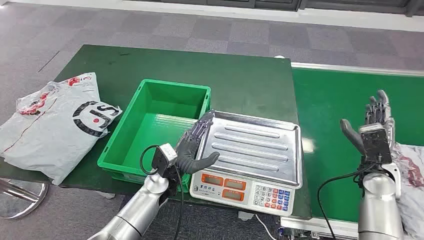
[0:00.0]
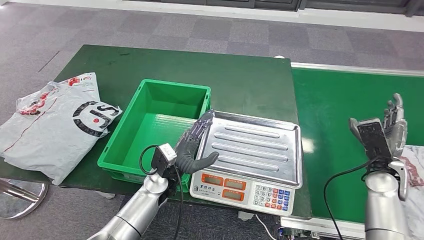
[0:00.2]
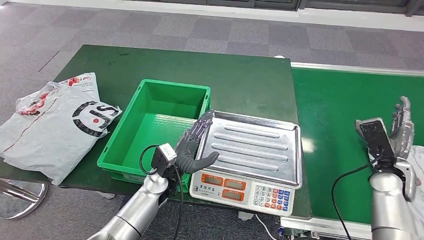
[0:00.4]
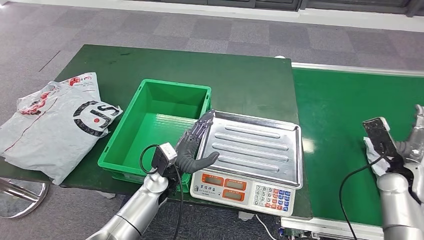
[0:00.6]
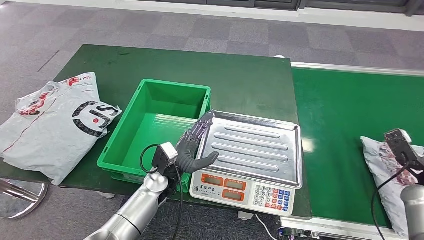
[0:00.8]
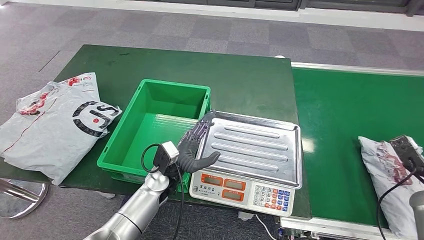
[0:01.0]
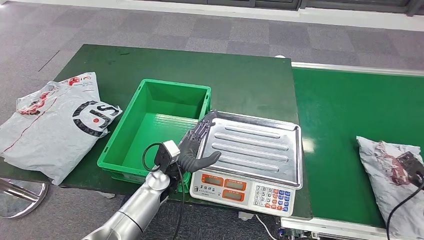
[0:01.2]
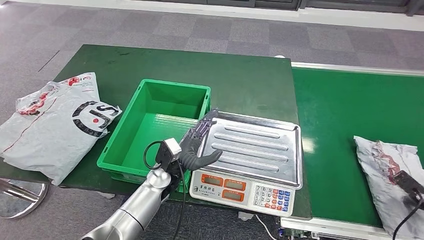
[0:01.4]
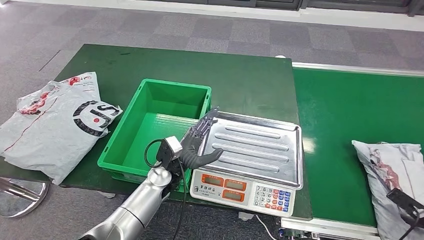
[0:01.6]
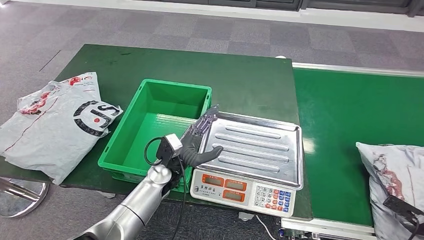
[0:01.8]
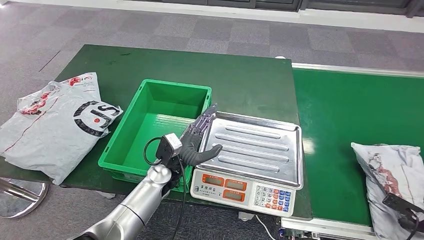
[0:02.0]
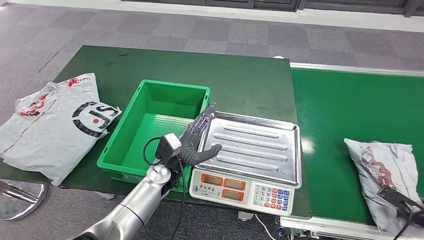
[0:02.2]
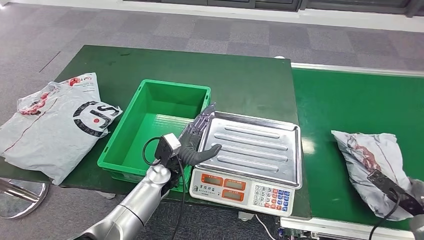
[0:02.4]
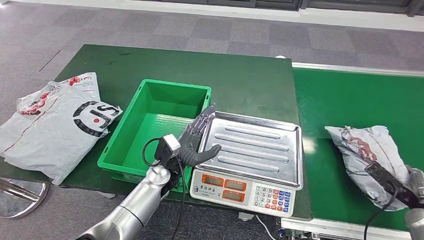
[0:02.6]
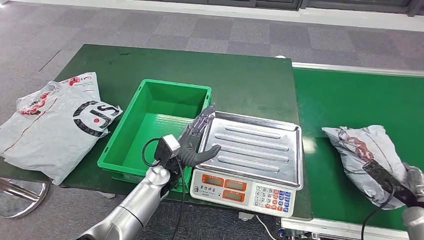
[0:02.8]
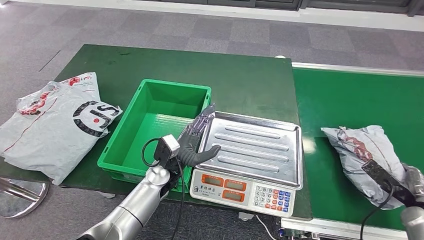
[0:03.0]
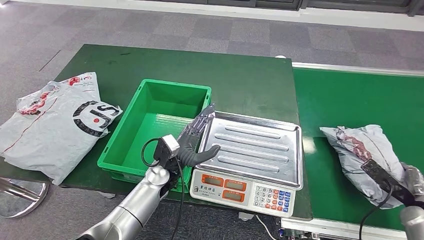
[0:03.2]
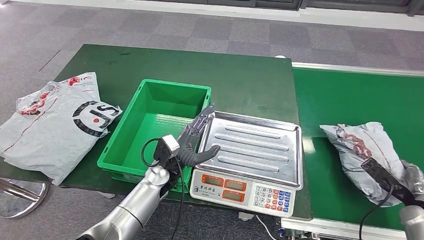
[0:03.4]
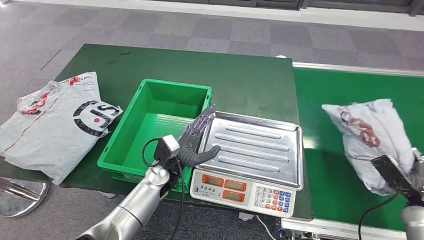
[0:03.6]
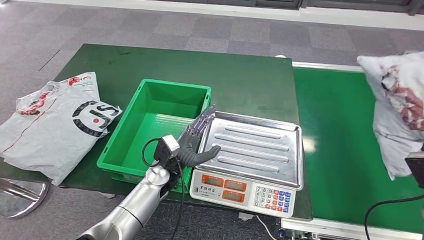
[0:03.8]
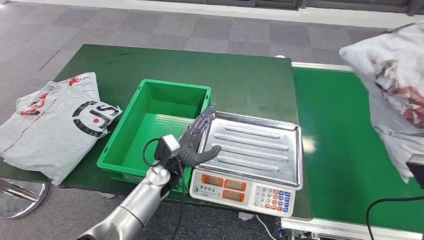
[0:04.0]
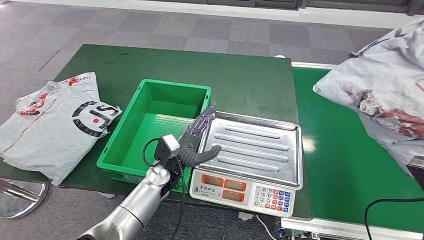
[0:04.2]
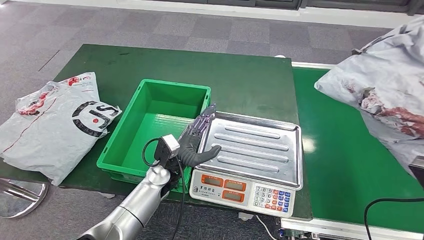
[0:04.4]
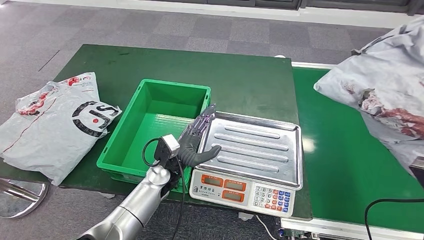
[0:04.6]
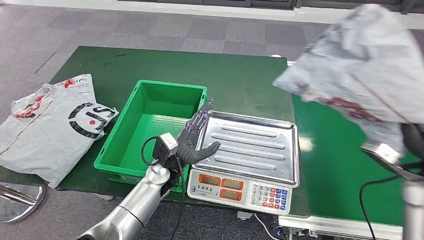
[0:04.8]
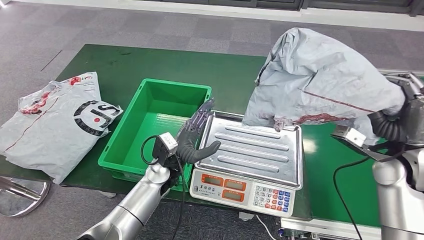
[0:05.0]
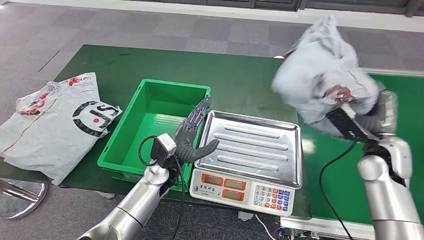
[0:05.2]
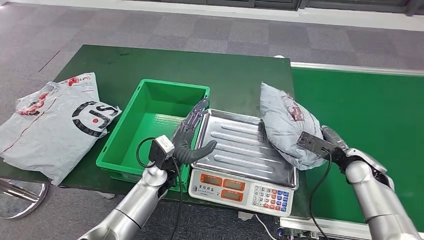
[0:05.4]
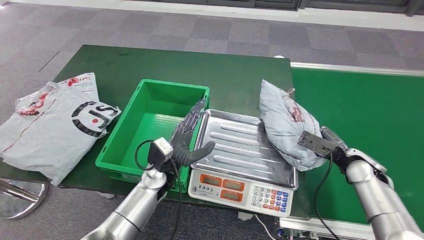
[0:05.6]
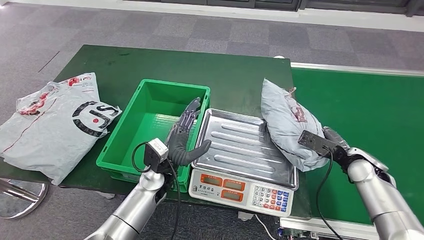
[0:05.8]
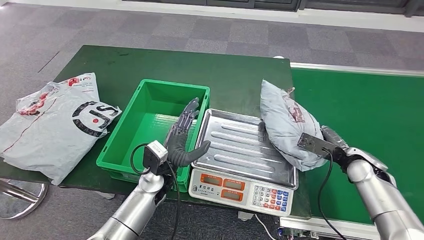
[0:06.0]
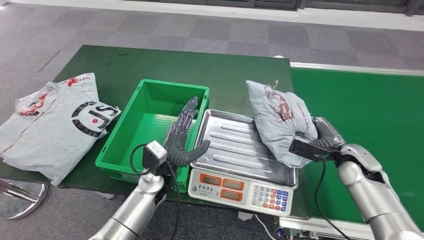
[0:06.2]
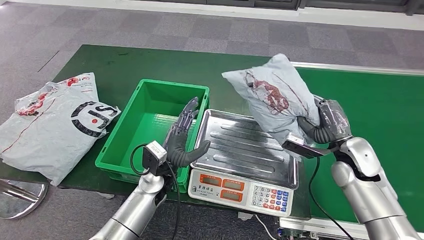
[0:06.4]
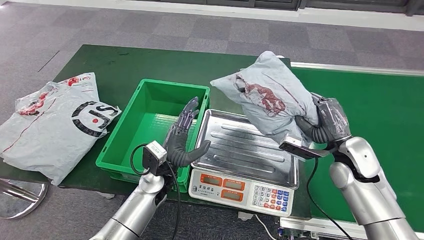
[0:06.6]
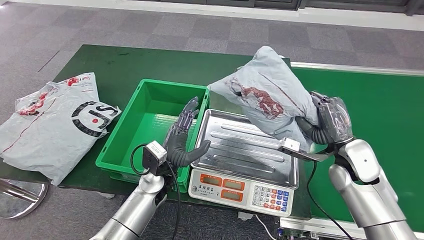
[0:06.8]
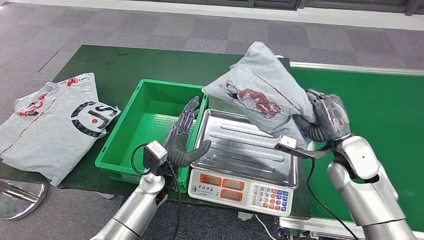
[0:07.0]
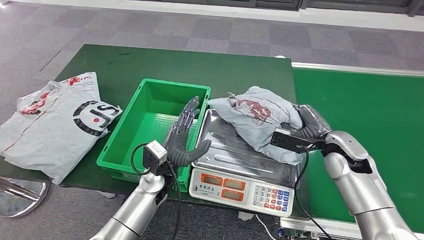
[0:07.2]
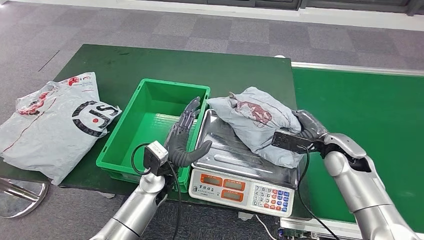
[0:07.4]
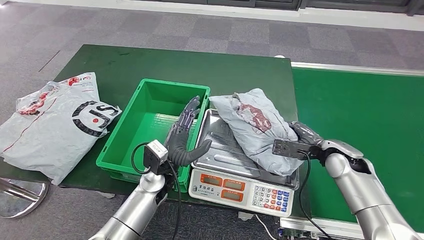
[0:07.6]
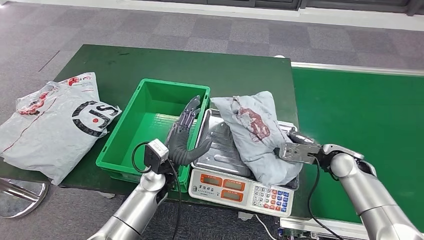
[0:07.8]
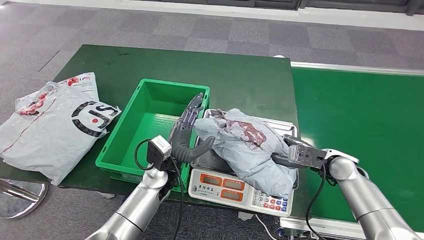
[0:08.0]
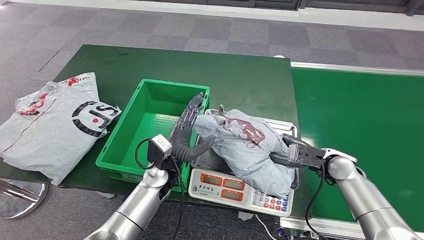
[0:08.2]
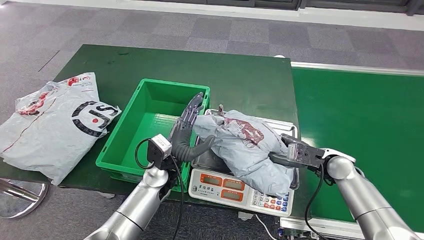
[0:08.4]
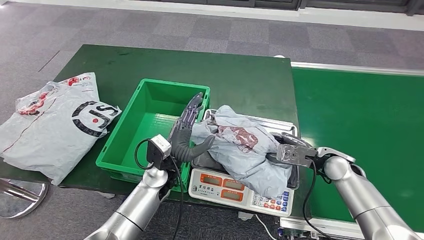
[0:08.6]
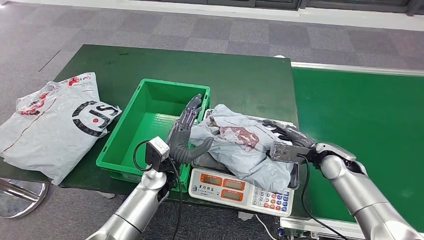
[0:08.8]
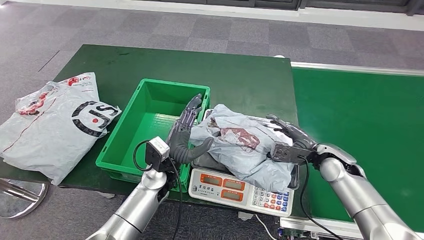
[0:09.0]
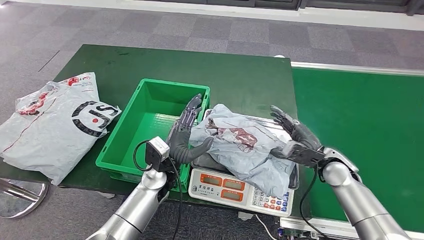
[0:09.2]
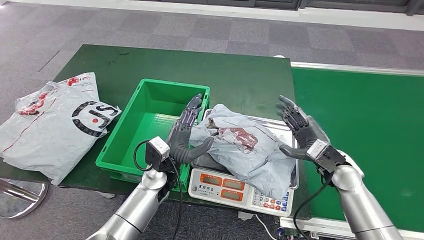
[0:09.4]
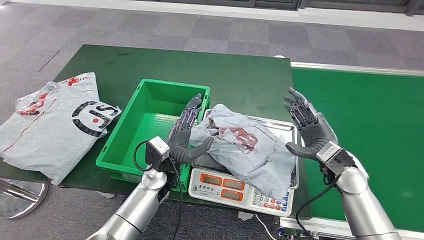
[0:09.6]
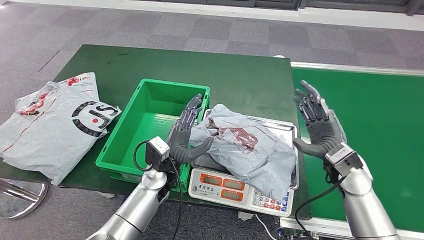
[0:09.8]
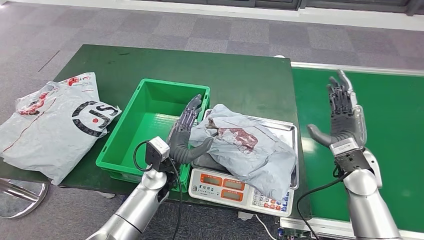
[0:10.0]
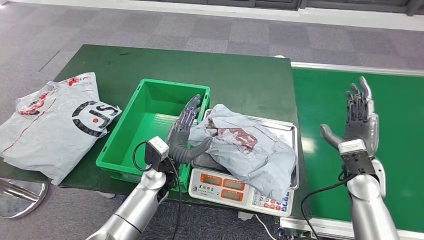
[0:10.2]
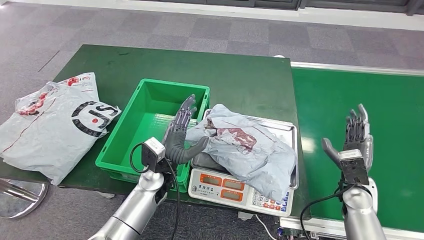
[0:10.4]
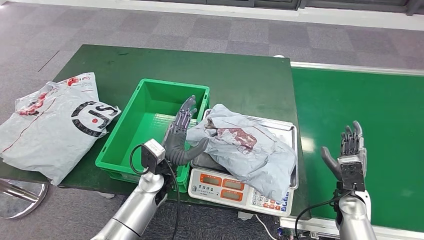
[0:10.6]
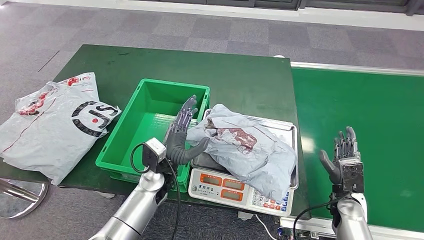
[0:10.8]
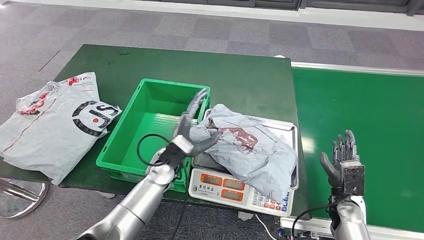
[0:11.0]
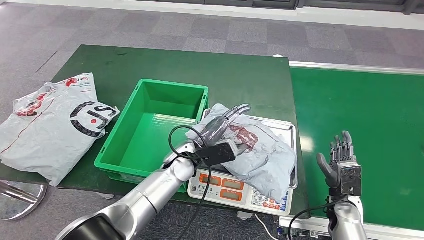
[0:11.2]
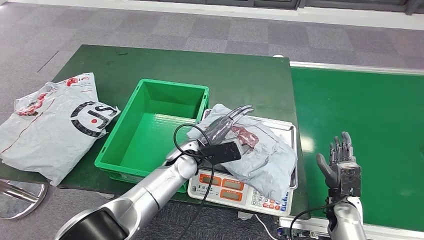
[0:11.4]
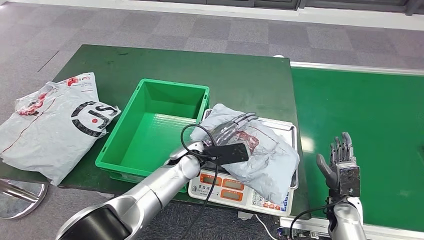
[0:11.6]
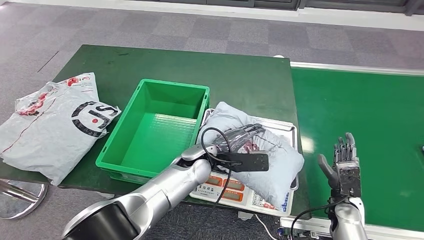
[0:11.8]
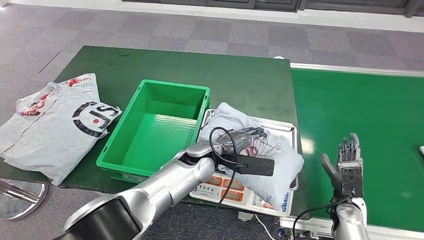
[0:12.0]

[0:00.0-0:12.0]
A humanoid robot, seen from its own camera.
Step, 0.0 to 4.0 s: Take the parcel off the conveyor belt.
Step, 4.4 to 7.2 s: Place the parcel onto the inbound machine.
1.6 to 3.0 s: The right hand shifts roughly 10 cm to the left and forward.
3.0 to 4.4 s: The right hand moves upward and to the left, roughly 15 cm.
6.0 to 7.6 s: The right hand goes roughly 5 cm to the left.
9.0 to 10.4 s: The right hand goes some 10 cm backward and to the right.

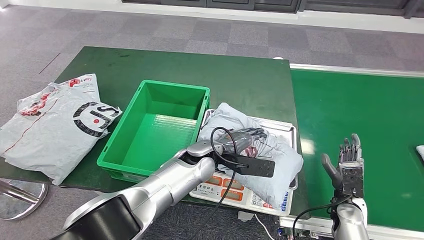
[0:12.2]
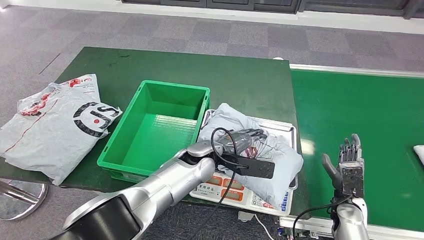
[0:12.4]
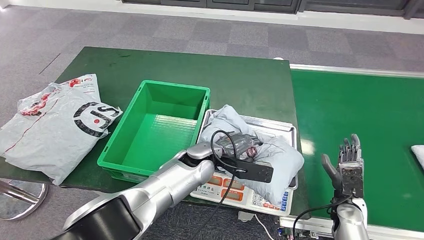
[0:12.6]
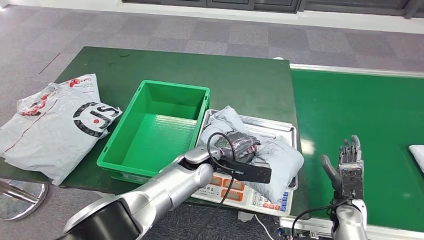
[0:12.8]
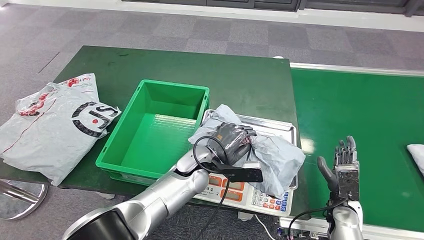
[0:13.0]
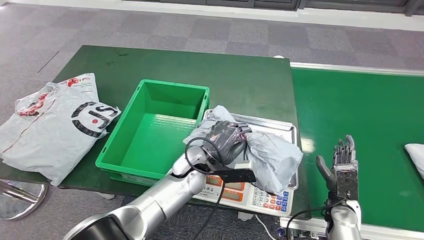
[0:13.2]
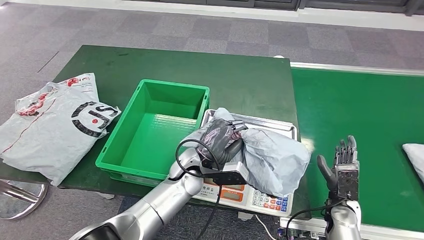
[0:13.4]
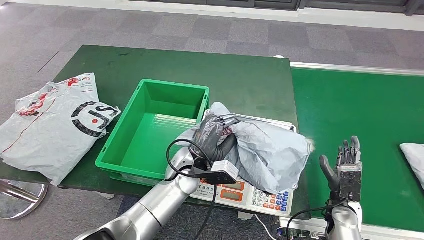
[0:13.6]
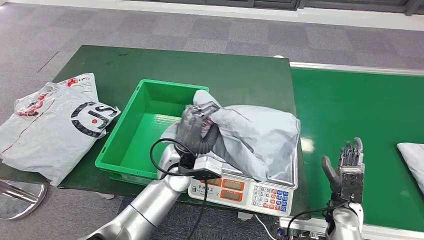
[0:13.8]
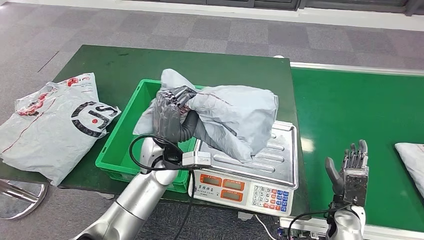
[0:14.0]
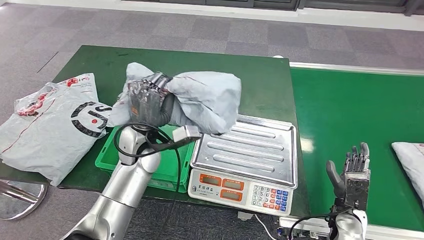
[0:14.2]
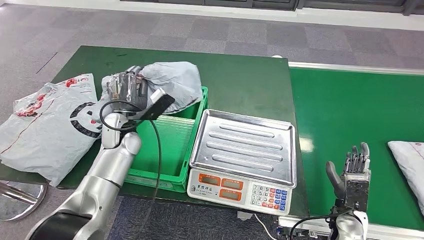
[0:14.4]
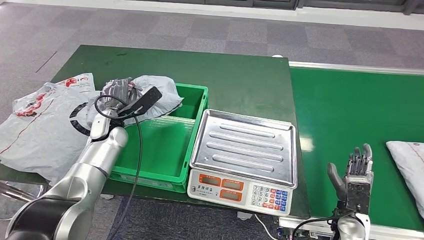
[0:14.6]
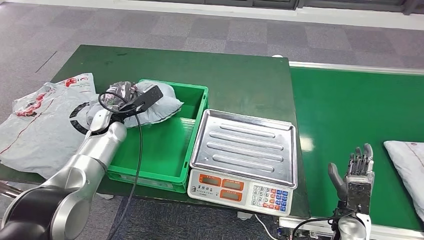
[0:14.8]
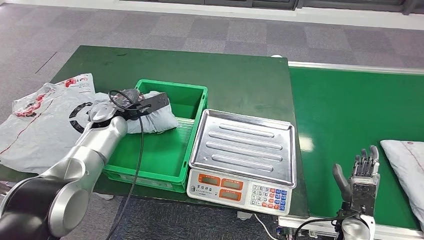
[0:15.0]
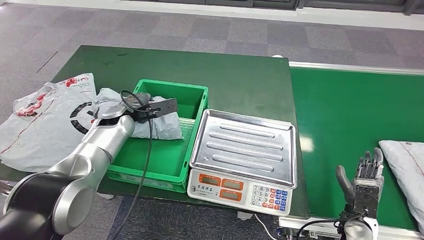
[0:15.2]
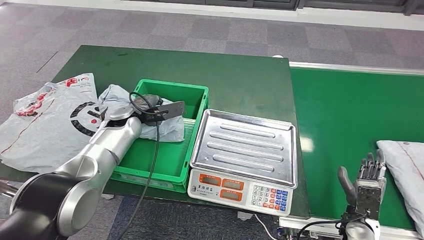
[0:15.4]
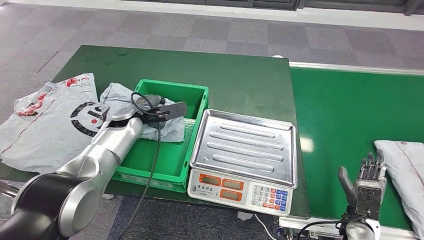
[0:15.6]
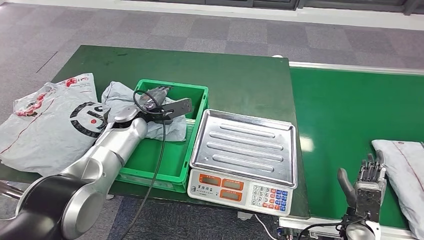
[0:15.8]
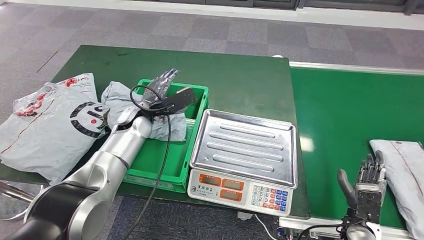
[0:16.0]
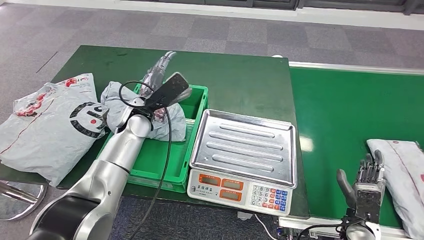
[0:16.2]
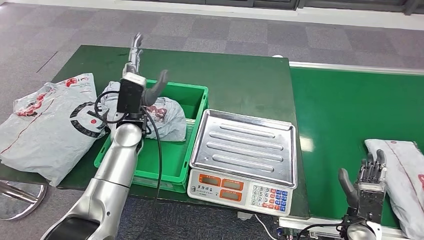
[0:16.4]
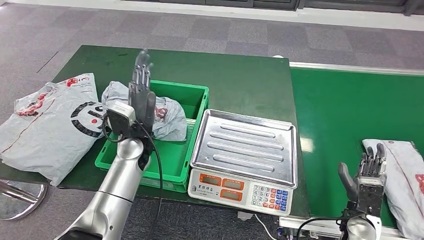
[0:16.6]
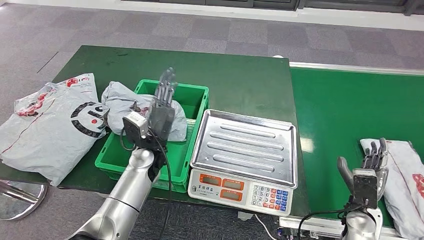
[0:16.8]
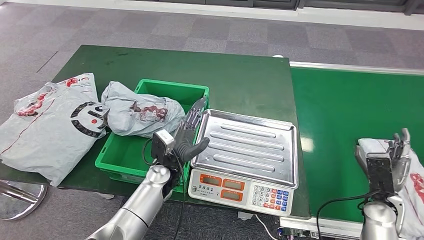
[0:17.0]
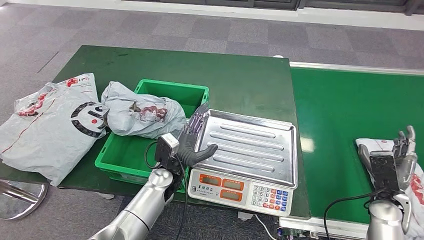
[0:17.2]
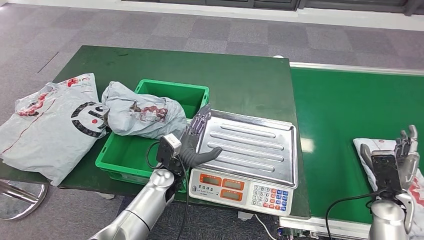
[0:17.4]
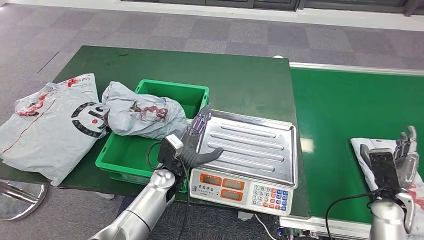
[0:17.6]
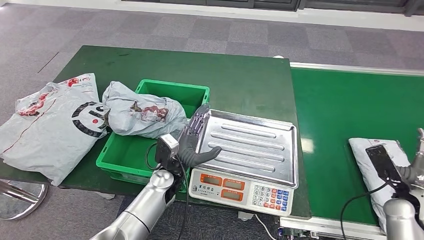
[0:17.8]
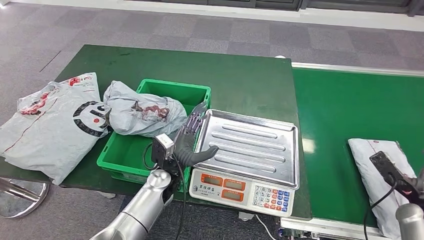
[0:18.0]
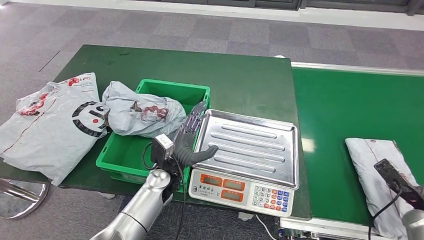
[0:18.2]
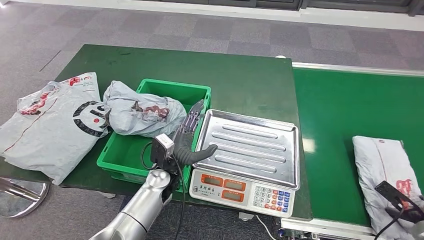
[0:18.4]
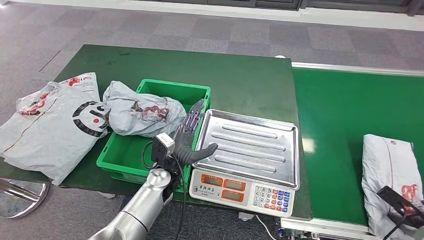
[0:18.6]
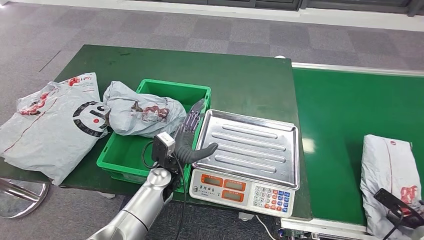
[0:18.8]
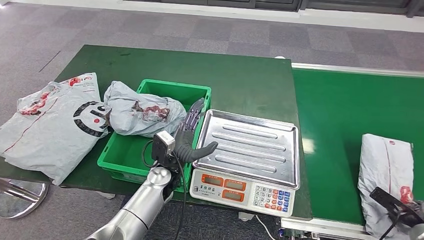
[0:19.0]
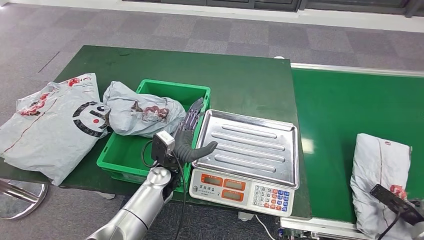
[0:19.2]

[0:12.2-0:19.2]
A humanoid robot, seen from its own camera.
Step, 14.2 to 16.4 s: Put the parcel inside the courier box.
17.8 to 19.2 s: The right hand shifts some 10 cm to the right and downward.
